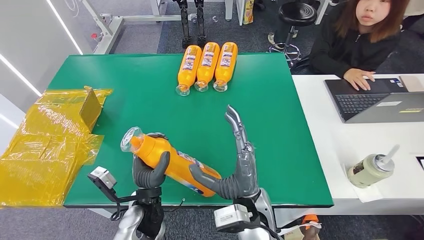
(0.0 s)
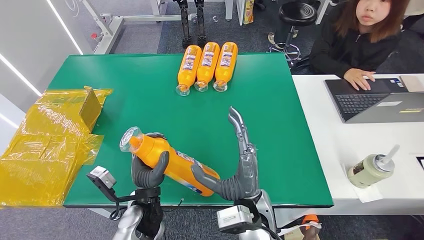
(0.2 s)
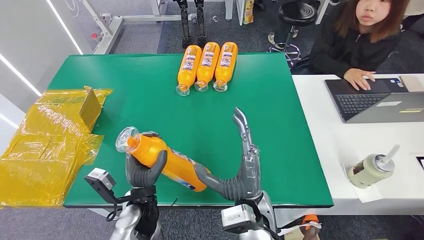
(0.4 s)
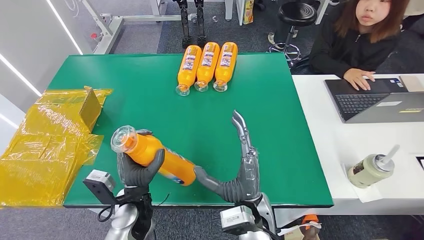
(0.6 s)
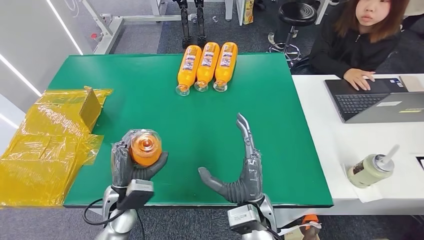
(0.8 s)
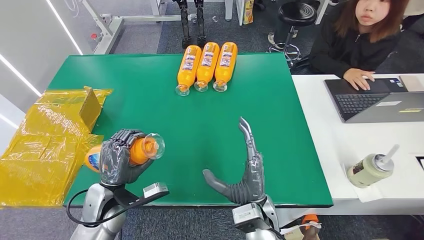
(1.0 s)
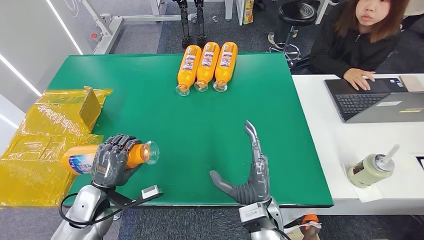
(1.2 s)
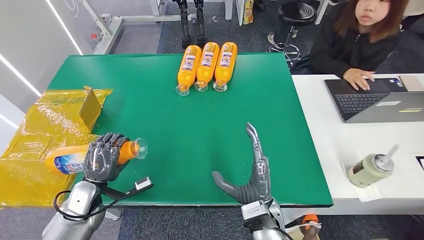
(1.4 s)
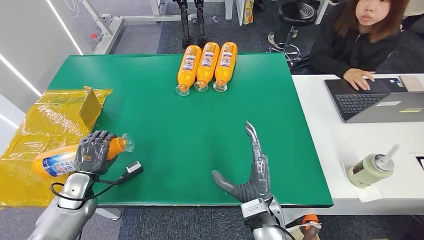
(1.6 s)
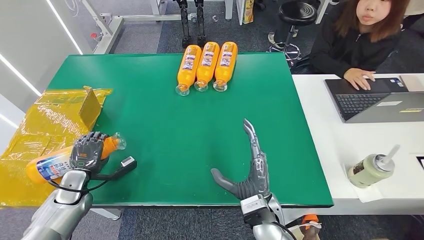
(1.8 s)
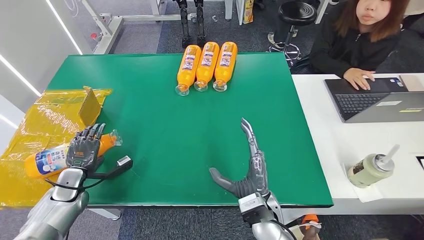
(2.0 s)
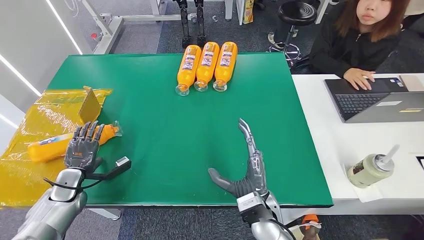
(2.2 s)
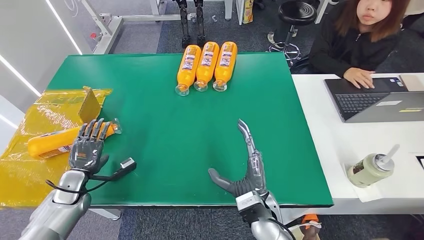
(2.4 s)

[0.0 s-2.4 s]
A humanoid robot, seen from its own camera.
Step, 0.0 to 2.4 s: Turn the bottle to the front side.
0.0 to 1.2 s: The right hand heads downward, covering about 5 cm. Meanwhile the left hand shifts roughly 15 cm to the left.
1.2 to 2.4 s: The left hand shifts about 10 cm to the left.

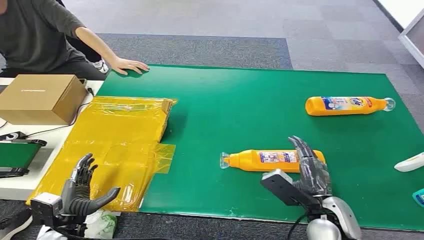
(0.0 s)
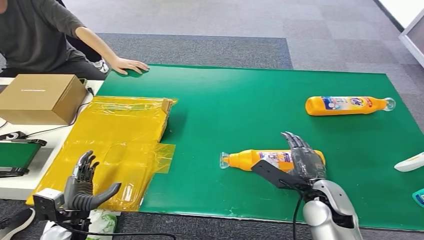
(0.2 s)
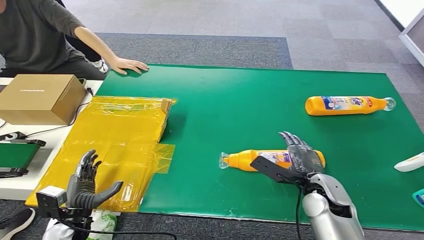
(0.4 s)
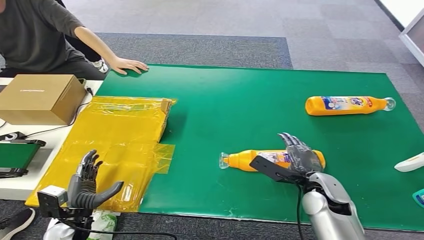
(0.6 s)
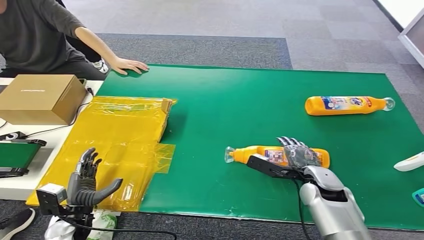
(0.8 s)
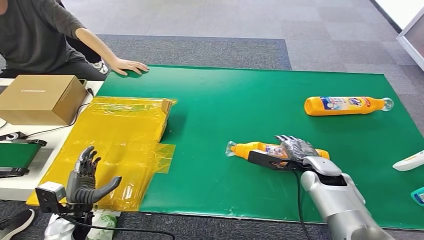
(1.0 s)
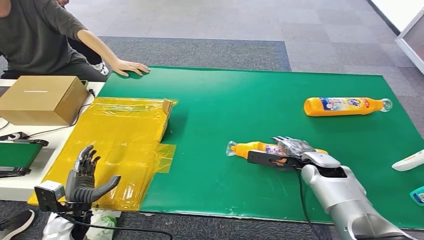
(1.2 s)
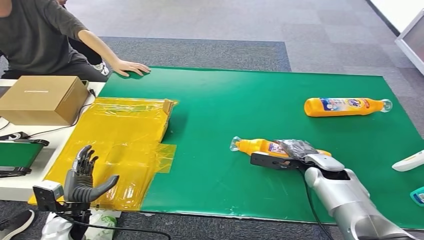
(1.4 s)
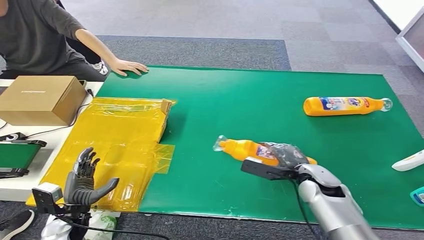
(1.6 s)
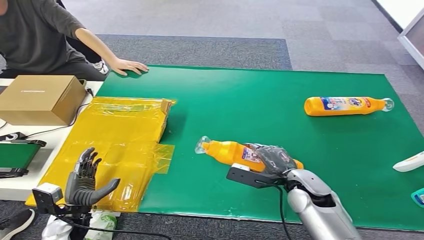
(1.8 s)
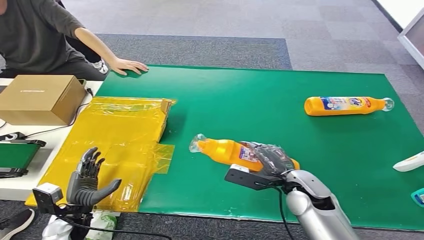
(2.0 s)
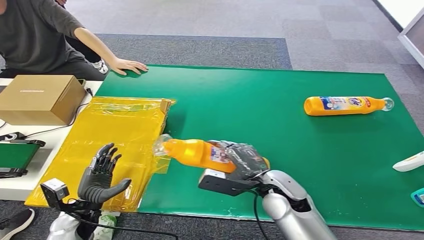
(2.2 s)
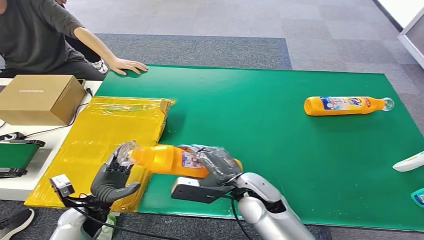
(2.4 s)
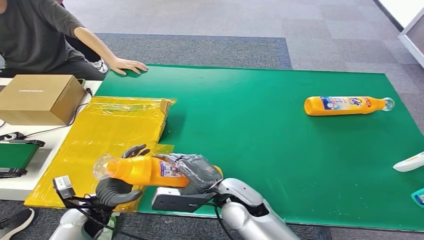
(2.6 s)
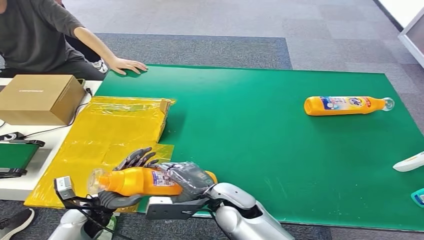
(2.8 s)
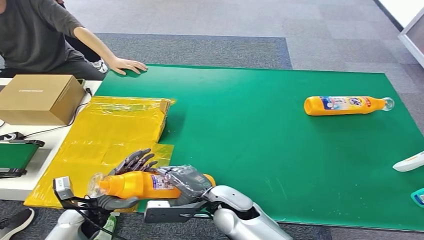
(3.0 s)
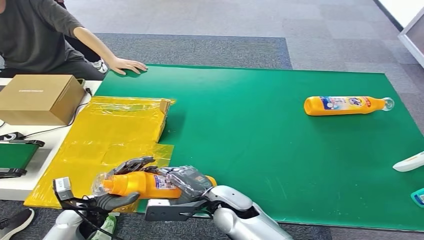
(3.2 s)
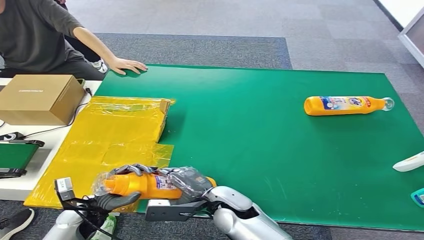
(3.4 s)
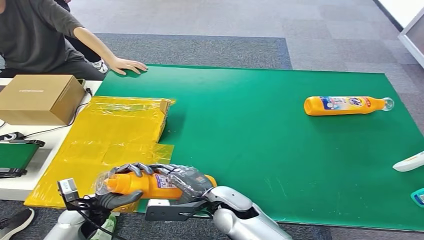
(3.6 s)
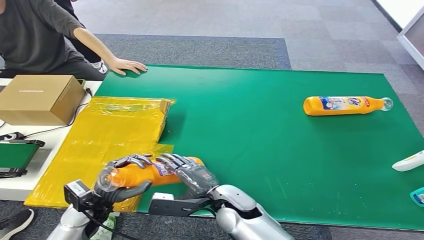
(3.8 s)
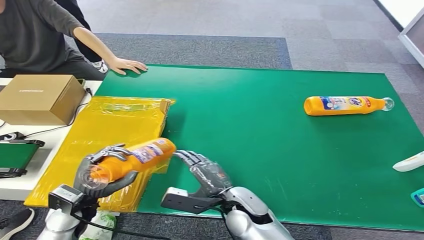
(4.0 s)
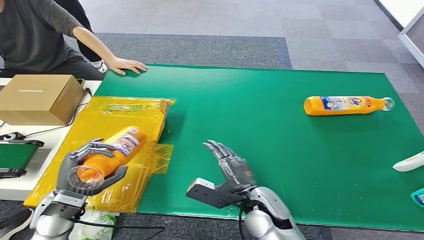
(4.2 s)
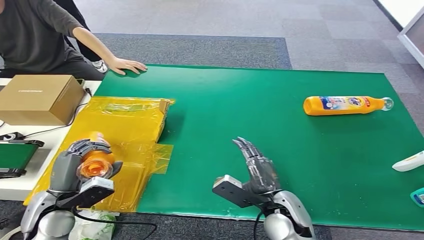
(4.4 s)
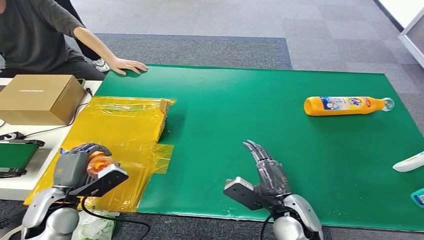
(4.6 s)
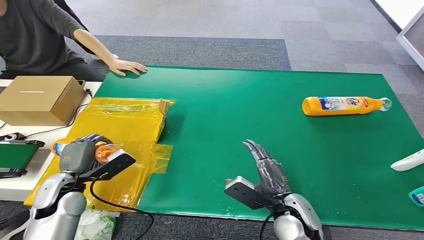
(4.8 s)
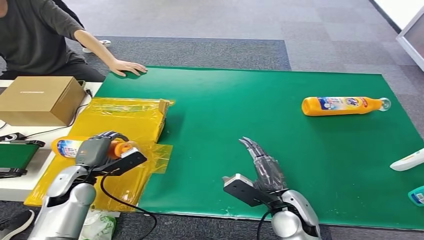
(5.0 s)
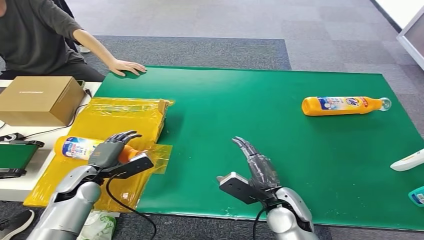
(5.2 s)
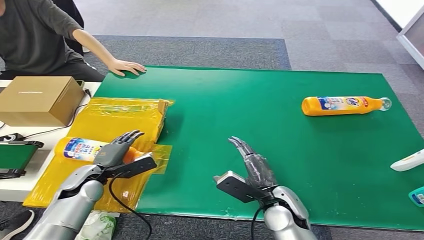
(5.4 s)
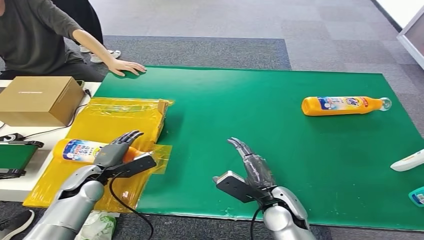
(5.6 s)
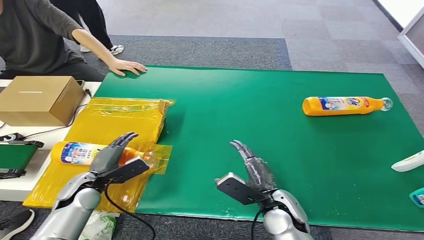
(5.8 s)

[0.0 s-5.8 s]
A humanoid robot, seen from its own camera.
Step, 0.0 to 2.0 s: Pick up the bottle from the table.
Step, 2.2 to 5.8 s: Turn the bottle to the front side.
2.8 to 4.4 s: The left hand heads upward, covering about 10 cm; the right hand travels to the right by some 10 cm.
4.4 to 5.8 s: The left hand heads downward and forward, covering roughly 10 cm.
